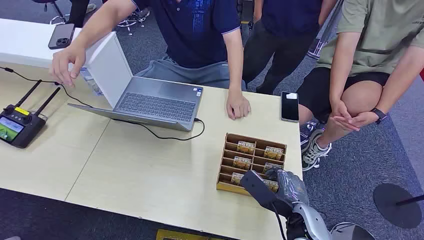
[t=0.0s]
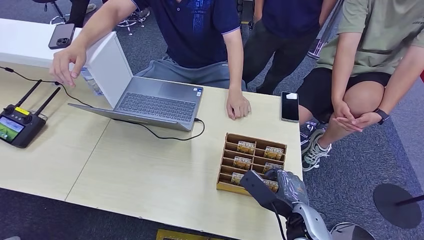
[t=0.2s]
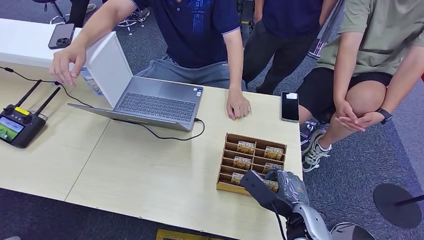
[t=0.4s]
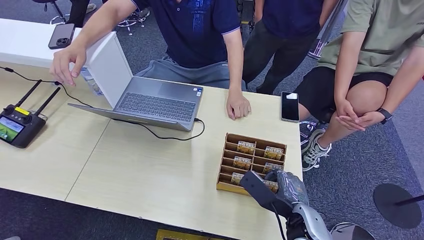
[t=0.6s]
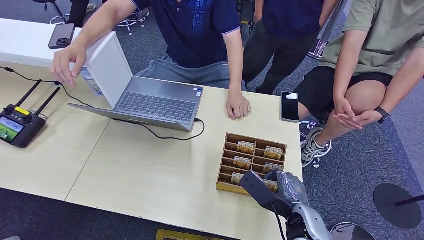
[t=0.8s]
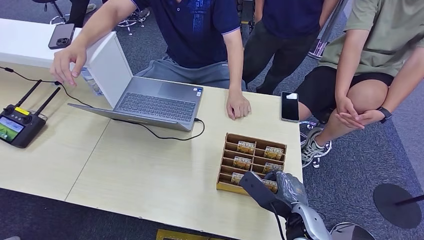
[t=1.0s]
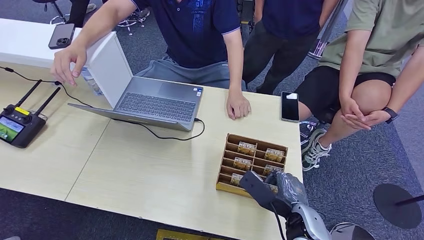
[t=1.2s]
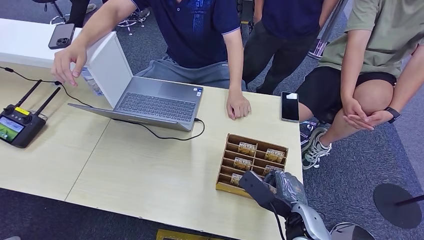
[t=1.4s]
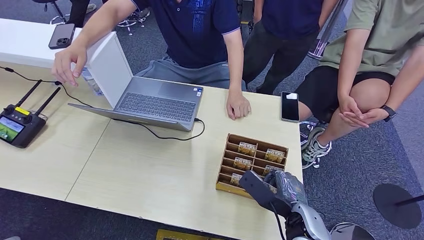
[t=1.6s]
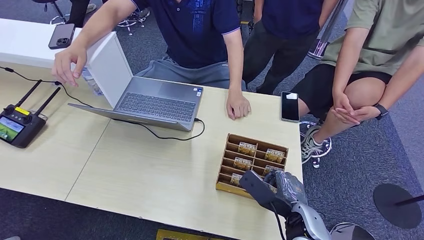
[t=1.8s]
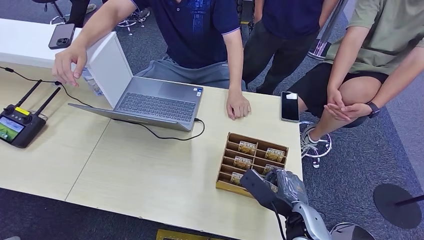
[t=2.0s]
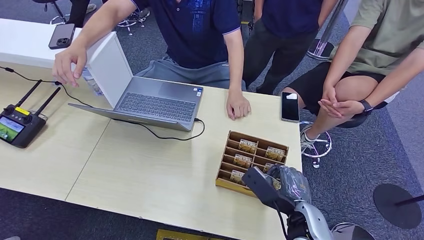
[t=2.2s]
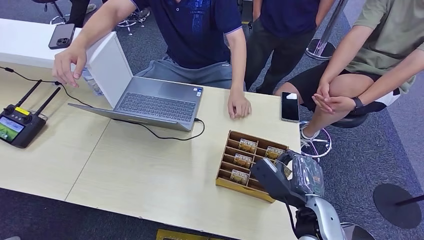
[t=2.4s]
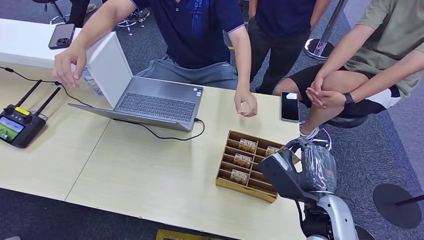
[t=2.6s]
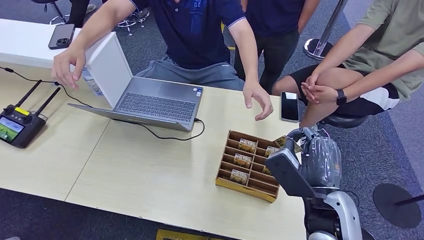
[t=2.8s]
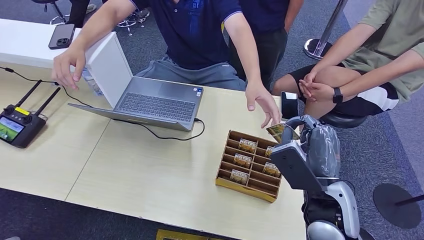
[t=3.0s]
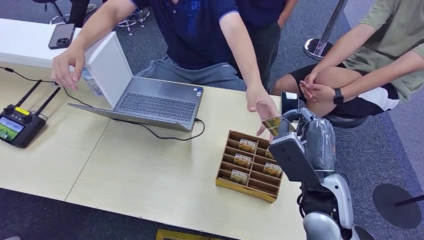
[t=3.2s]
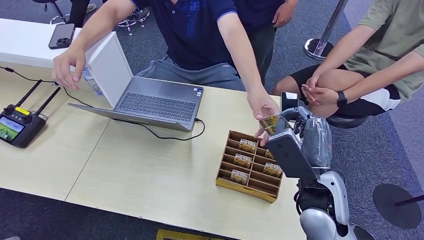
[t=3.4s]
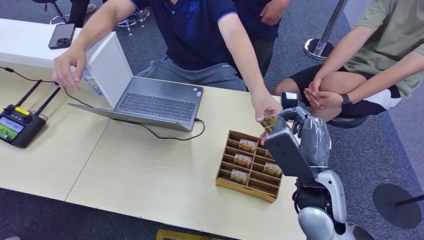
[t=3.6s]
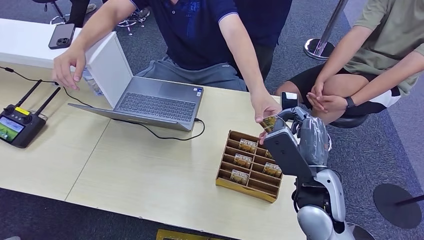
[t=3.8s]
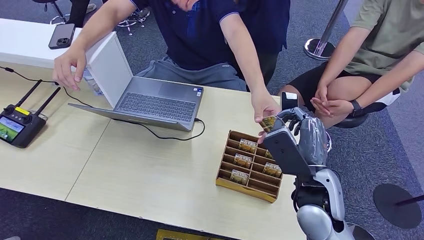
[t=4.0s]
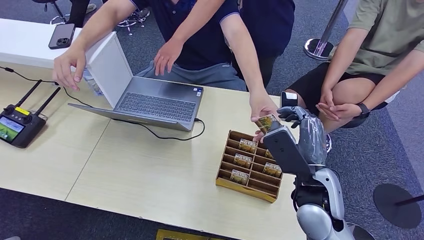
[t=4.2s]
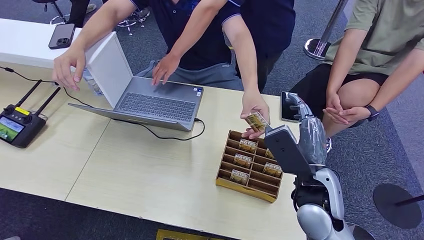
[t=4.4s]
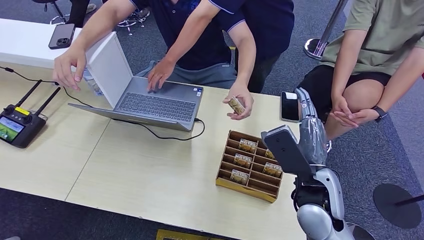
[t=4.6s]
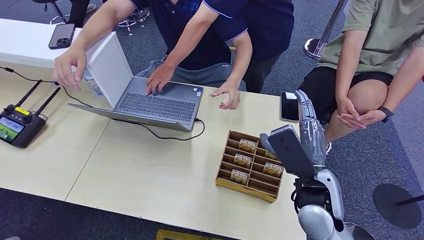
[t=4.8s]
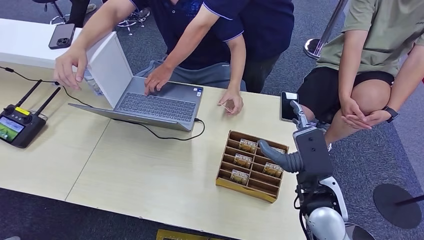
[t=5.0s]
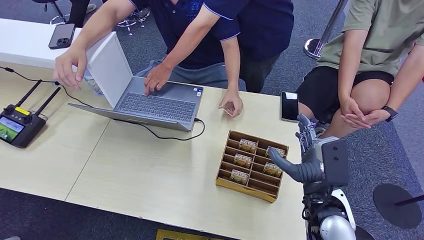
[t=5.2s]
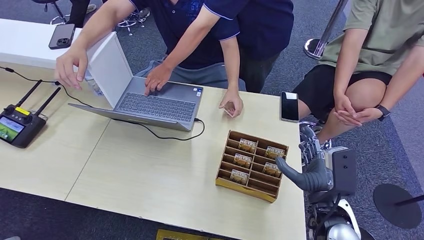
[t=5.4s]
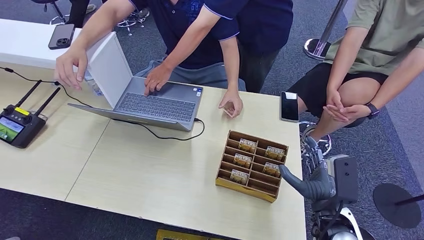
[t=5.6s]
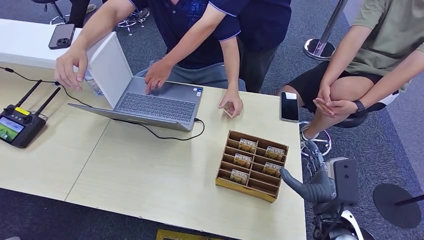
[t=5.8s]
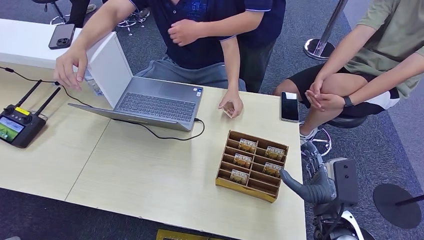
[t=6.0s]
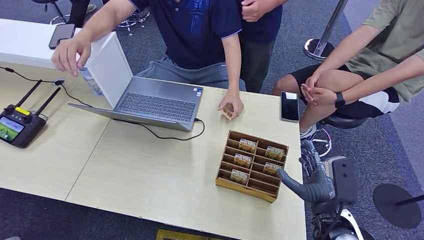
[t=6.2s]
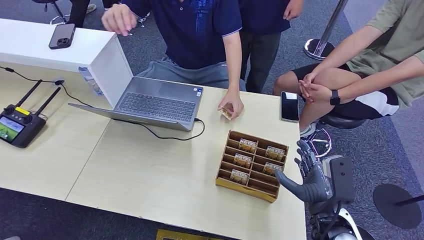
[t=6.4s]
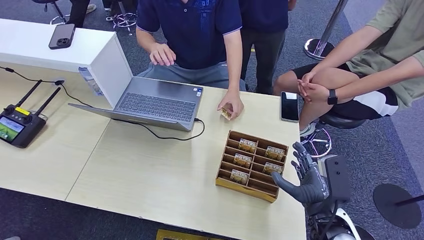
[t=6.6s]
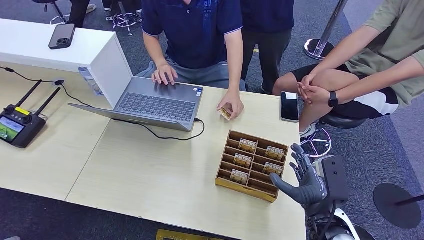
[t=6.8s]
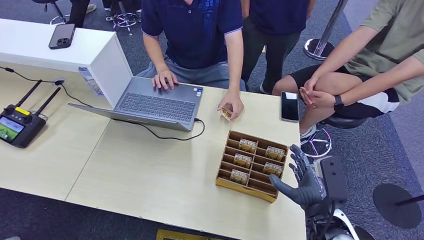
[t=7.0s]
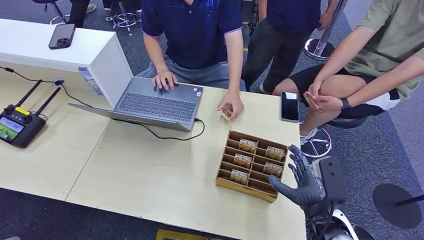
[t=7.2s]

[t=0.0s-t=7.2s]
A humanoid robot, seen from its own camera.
Step, t=0.0s to t=2.4s: Pick up the key card from the card box.
Step, t=2.8s to t=7.2s: Hand the key card to the target.
t=2.8s to t=4.4s: The hands make only small movements.
t=4.4s to t=5.8s: The right hand travels downward and to the right by about 10 cm.
t=5.8s to t=7.2s: The hands move only a little.
